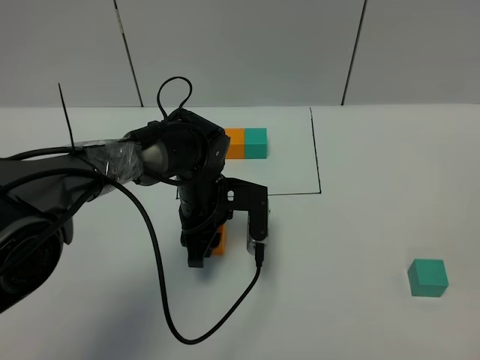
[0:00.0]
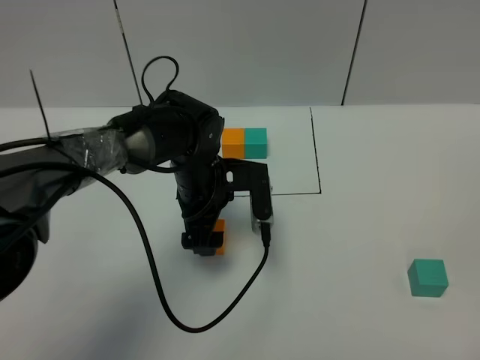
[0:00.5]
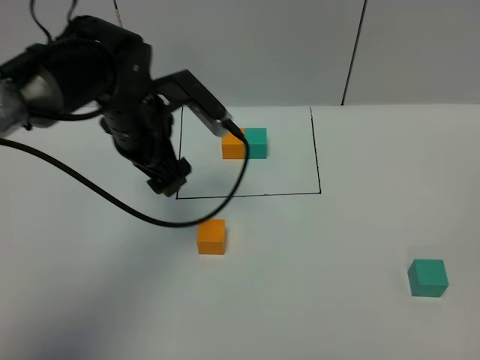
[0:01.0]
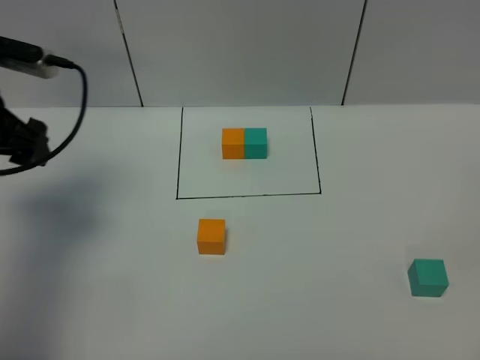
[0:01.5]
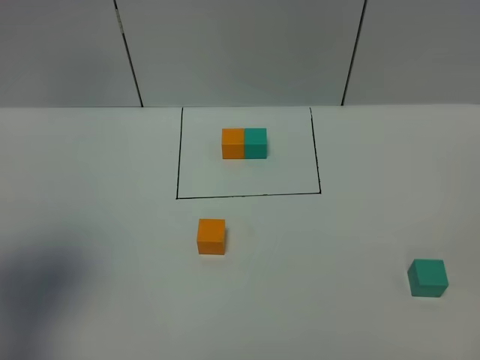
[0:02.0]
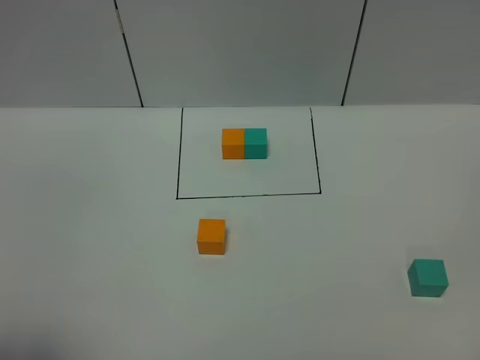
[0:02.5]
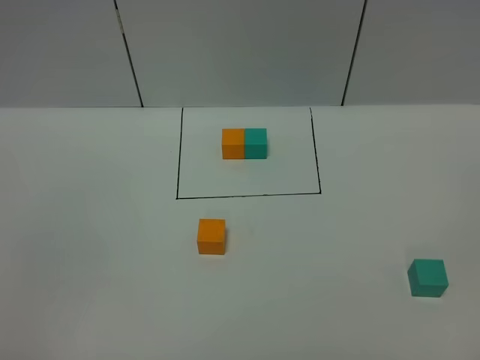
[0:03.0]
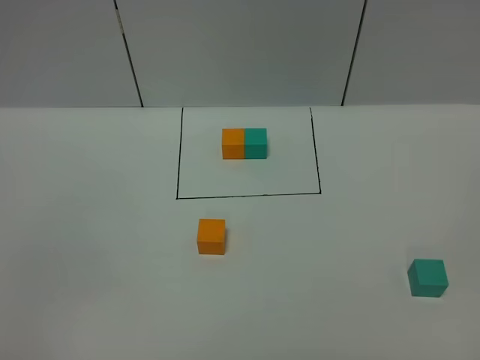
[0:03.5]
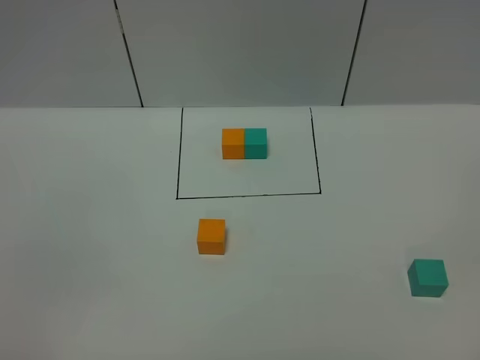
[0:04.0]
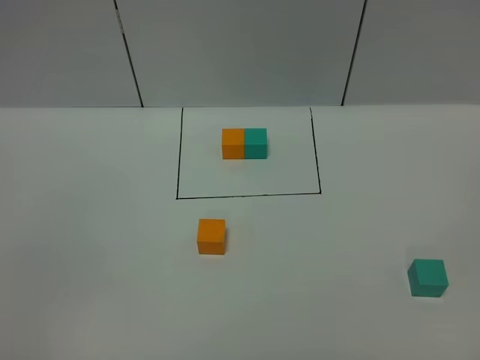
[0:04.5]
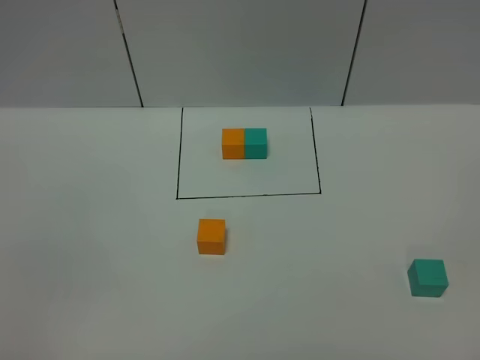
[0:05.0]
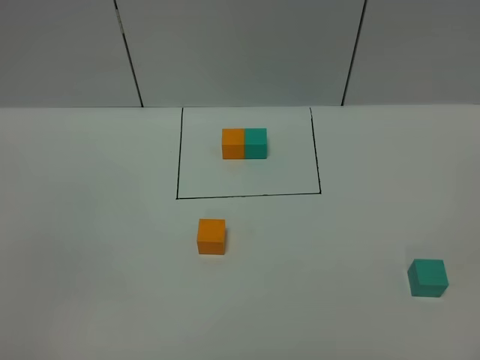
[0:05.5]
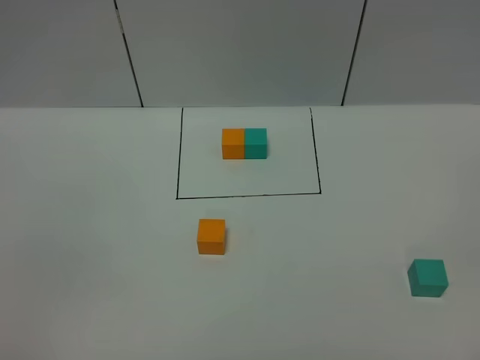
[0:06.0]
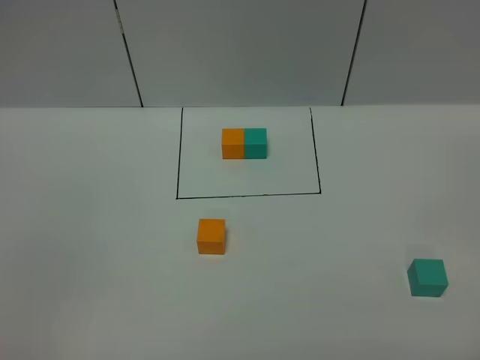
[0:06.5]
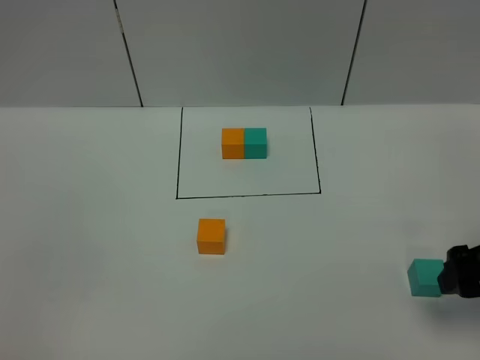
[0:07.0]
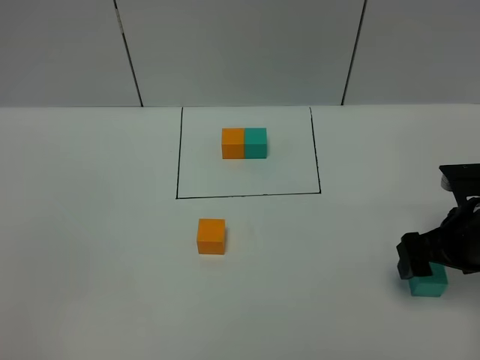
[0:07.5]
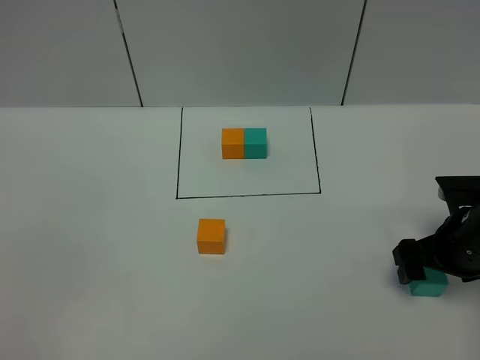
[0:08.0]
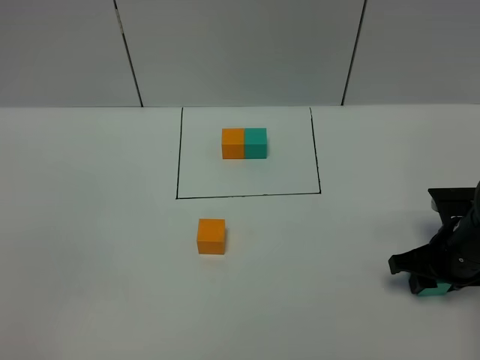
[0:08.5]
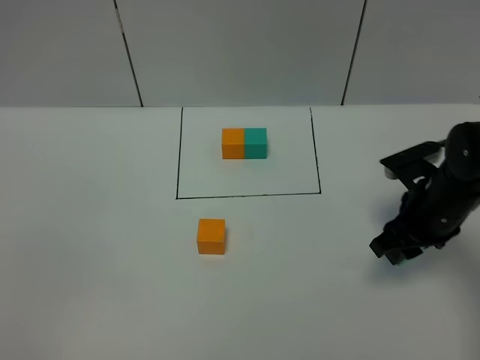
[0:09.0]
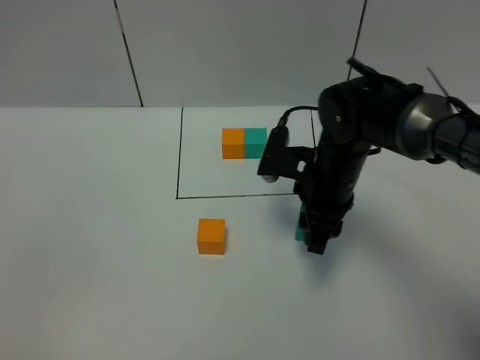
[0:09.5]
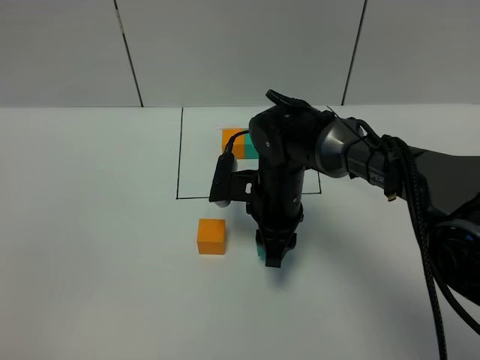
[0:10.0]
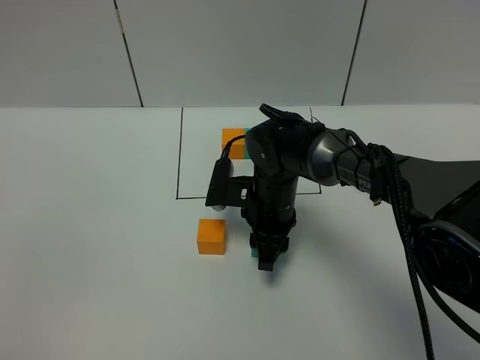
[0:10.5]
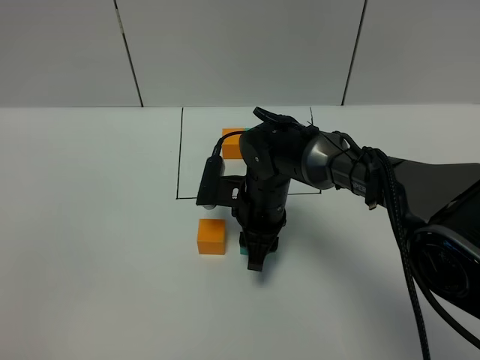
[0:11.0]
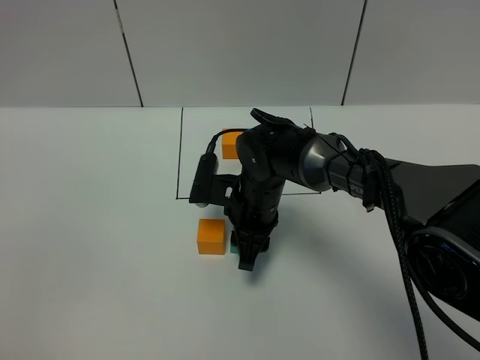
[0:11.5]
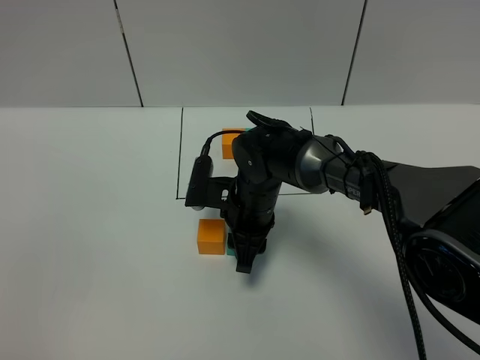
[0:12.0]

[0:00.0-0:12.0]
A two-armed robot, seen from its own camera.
Task of the whole recording: According to the building block template in front, assemble the scattered blocks together.
0:00.0 to 0:02.0: The left gripper goes approximately 40 cm to the left, upward and backward, and opens up.
0:02.0 to 0:04.0: The left gripper shifts roughly 20 cm backward.
0:04.0 to 0:06.0: Both grippers stay put.
0:06.0 to 0:08.0: The right gripper shifts approximately 35 cm forward and downward.
0:08.0 to 0:10.0: The right gripper travels to the left by some 25 cm, and closes.
0:10.0 to 0:12.0: The grippers move only a little.

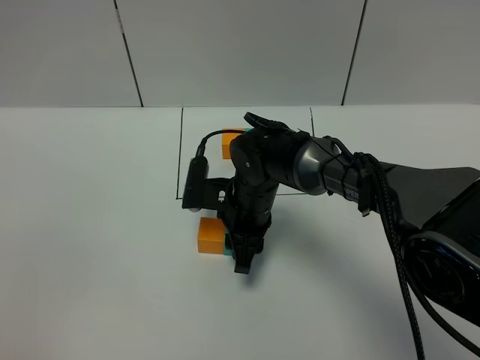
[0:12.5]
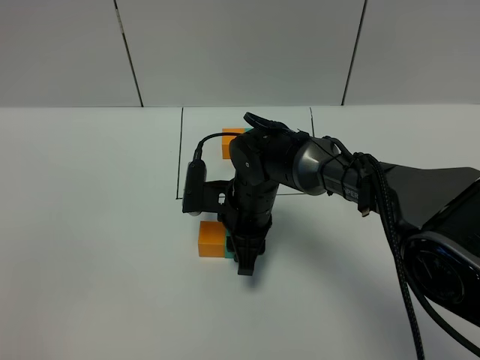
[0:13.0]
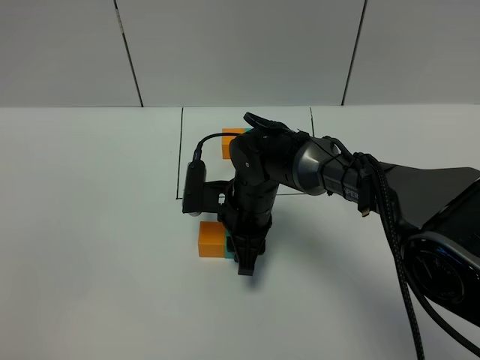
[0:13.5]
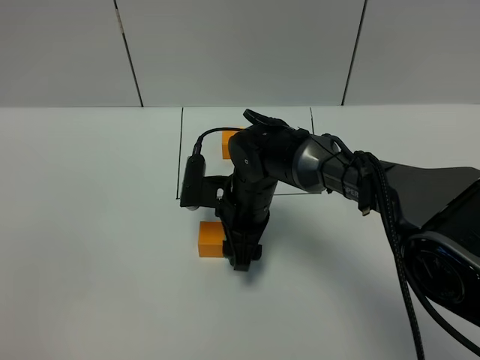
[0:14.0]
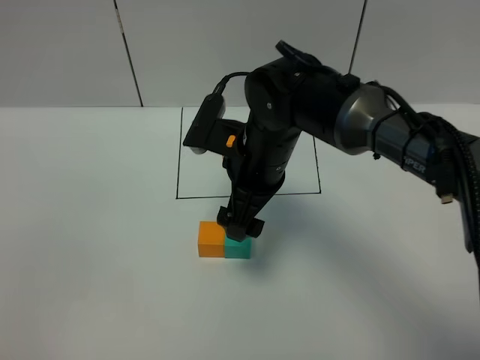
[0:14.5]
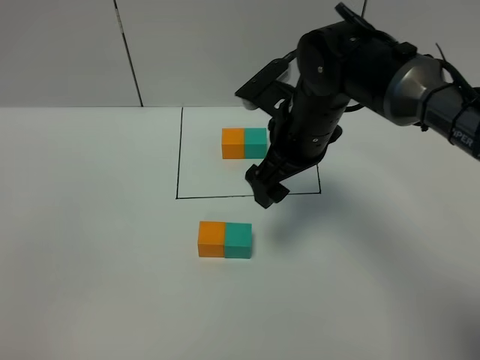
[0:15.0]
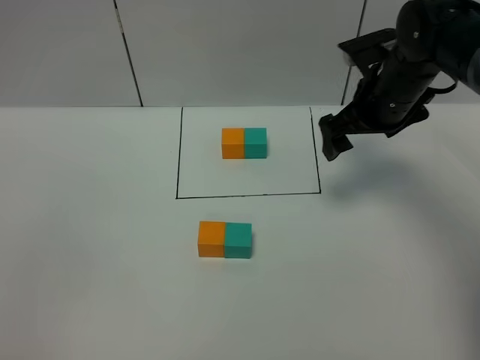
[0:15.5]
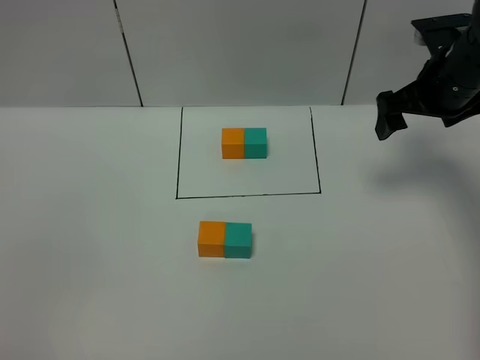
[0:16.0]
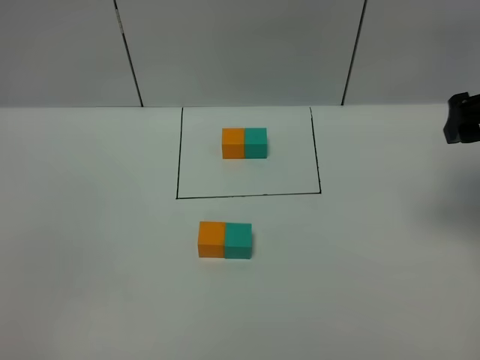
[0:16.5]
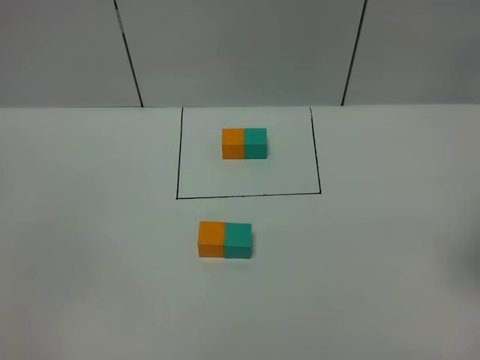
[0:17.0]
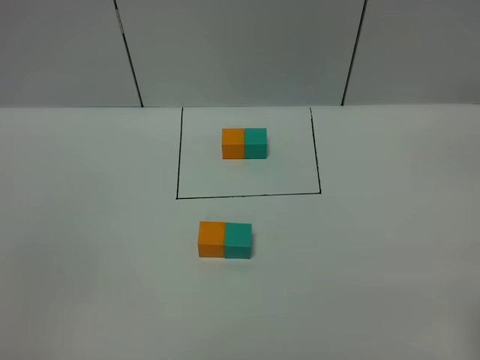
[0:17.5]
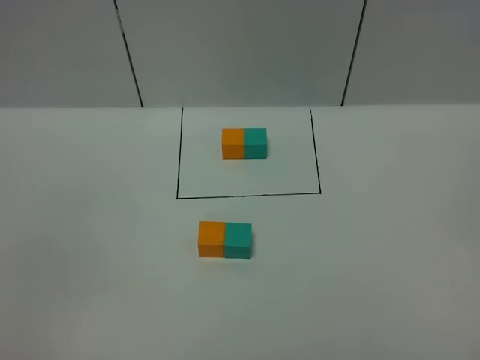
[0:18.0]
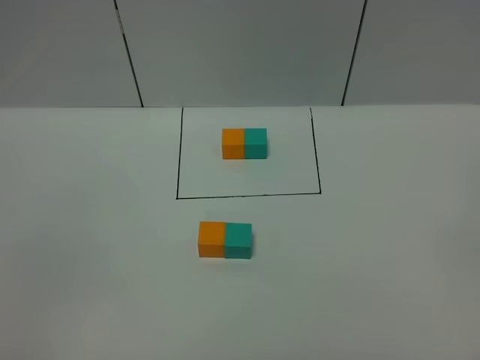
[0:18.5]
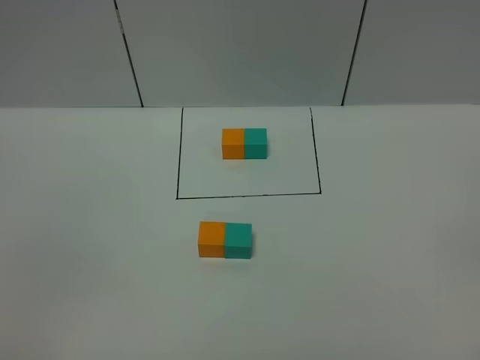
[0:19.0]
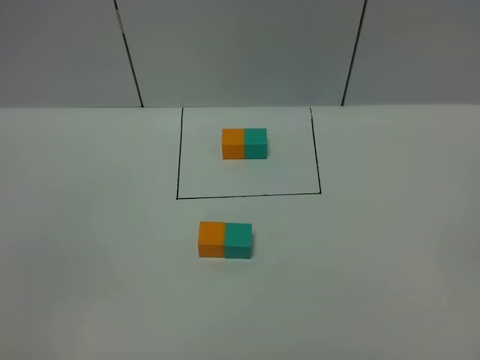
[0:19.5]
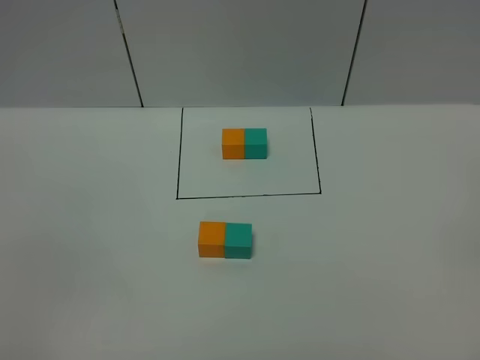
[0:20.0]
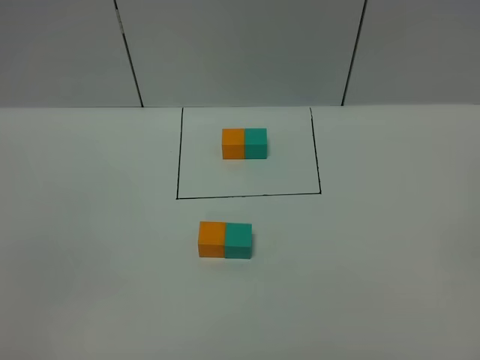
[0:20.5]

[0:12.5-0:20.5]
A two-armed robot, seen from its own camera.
Task of the whole recording: According to the building block template in front, assemble the scattered blocks together.
Step, 0:12.5 to 0:15.0: Put the green cube on the right of the orange cube.
0:12.5 to 0:14.5: The right gripper shifts some 10 cm upward, and opens its fingers.
0:14.5 to 0:16.5: The right gripper shifts about 30 cm to the right.
0:16.5 to 0:18.5: The right gripper shifts approximately 35 cm backward.

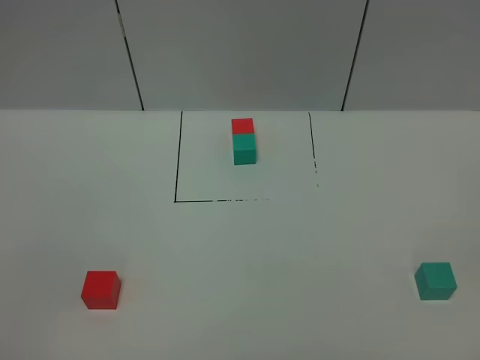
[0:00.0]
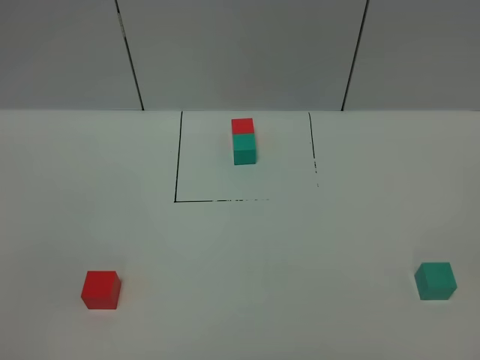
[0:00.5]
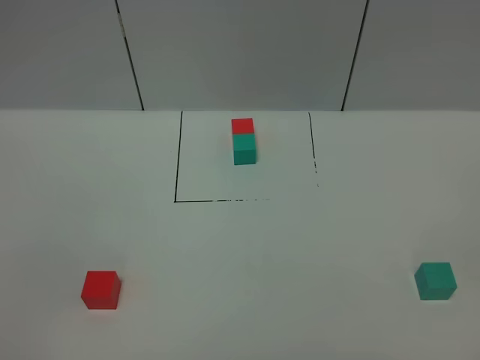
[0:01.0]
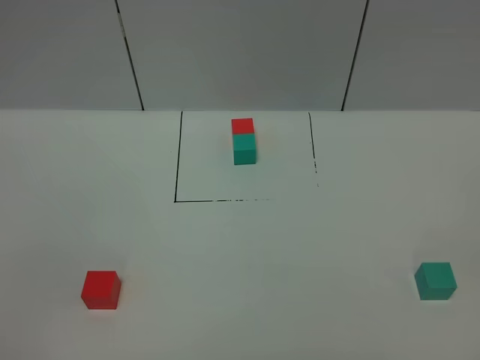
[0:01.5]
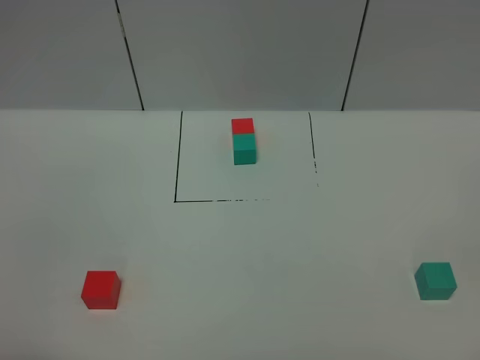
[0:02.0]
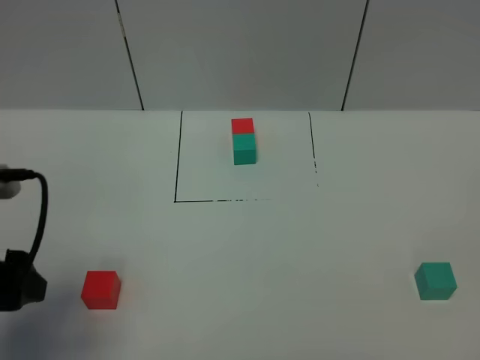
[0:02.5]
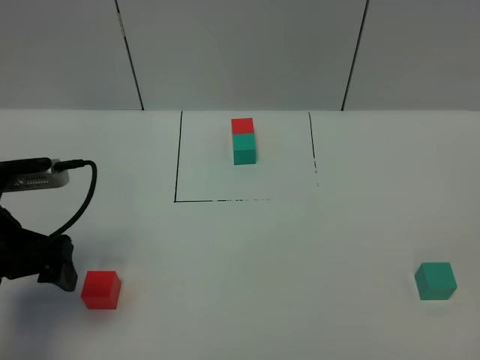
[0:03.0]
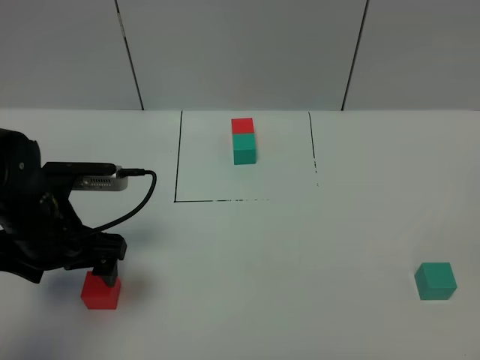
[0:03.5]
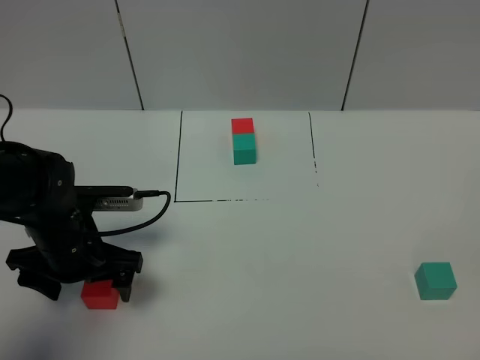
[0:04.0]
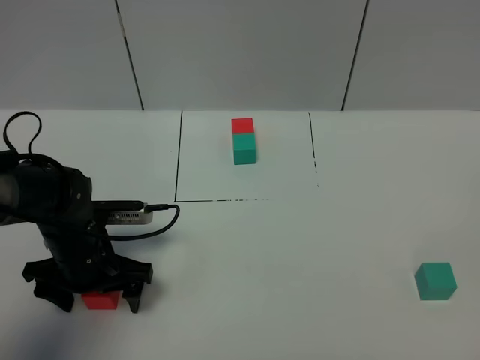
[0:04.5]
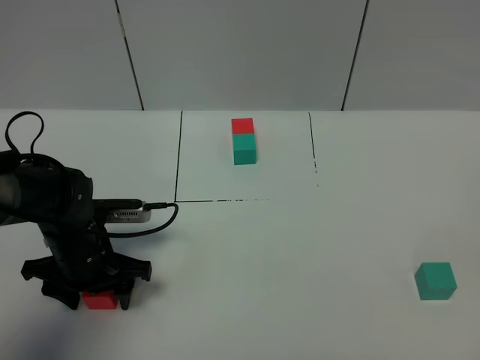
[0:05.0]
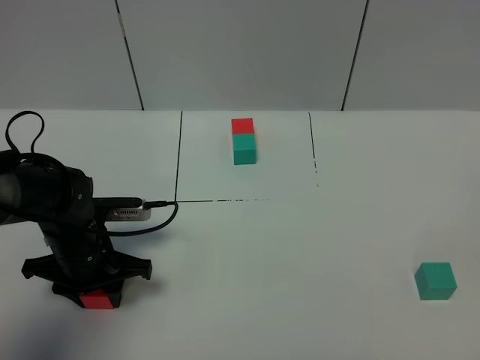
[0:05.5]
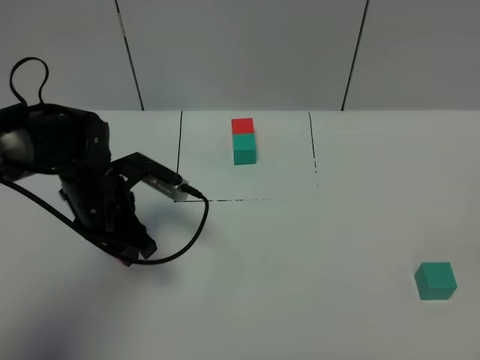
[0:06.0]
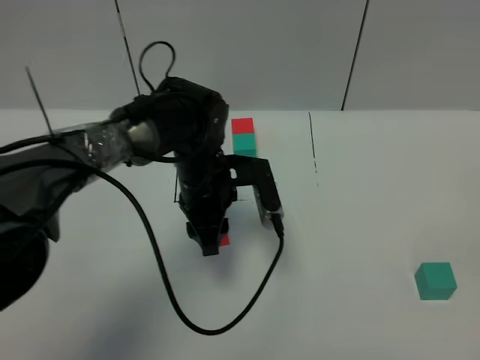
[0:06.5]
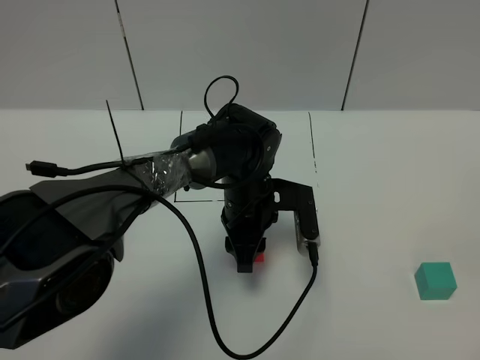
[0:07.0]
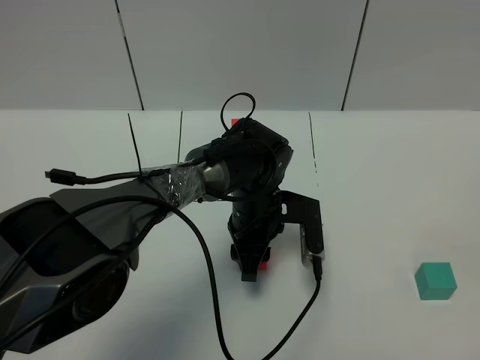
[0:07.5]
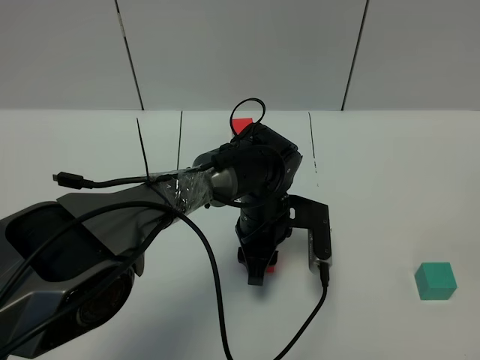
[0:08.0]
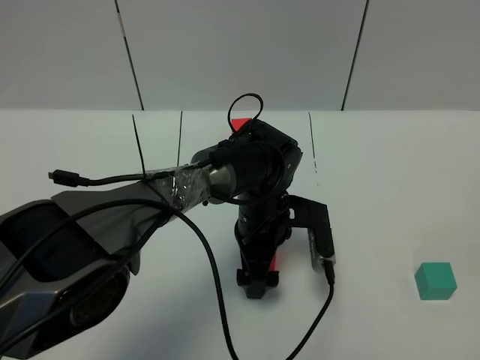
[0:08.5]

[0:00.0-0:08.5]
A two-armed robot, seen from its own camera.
Task of the whole recording: According to the building block template in front, assemble the scattered blocks together.
0:02.0 to 0:04.0: The left gripper goes about 30 cm forward and downward.
0:04.0 to 0:06.5: The left gripper moves to the right and forward, about 20 cm, and closes up.
0:06.5 to 0:08.5: The left gripper moves to the right, roughly 5 cm, and opens its fingers.
